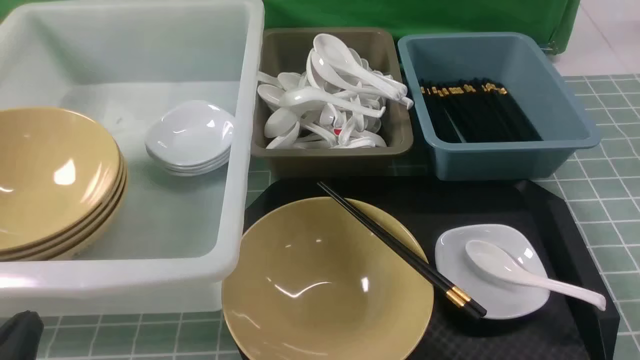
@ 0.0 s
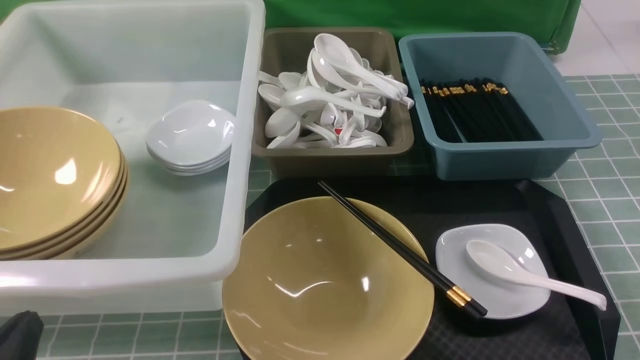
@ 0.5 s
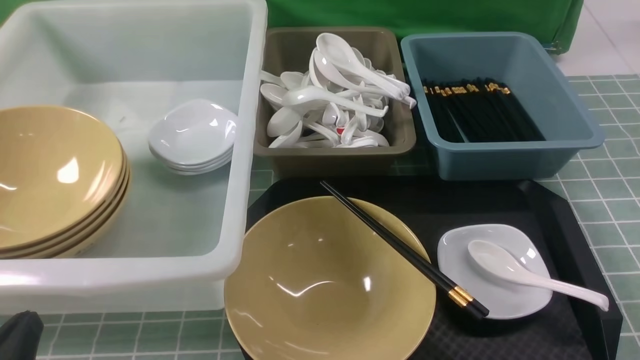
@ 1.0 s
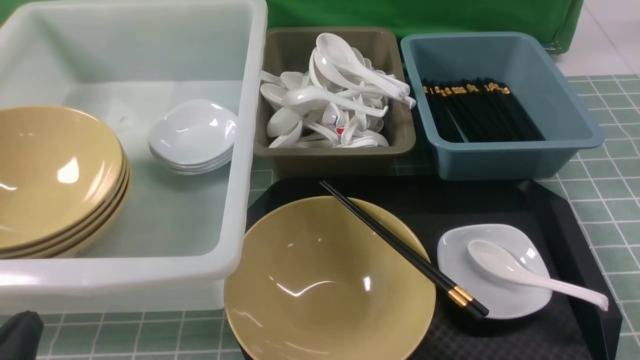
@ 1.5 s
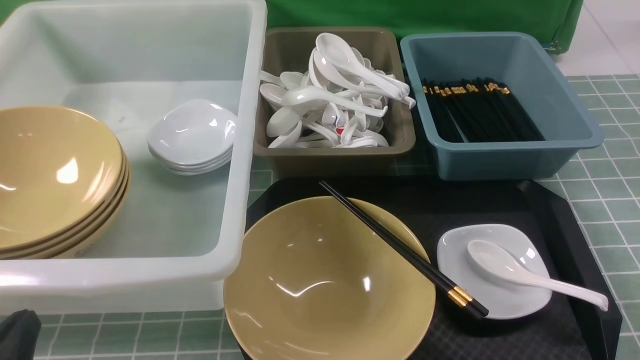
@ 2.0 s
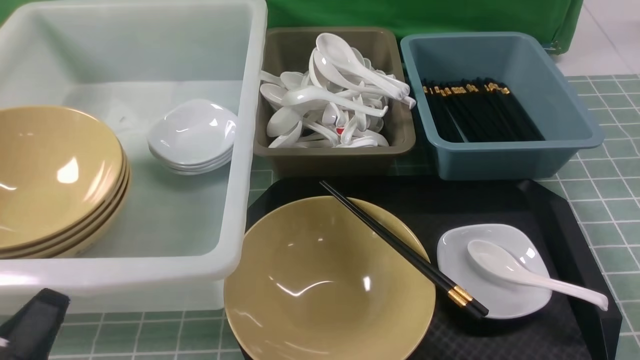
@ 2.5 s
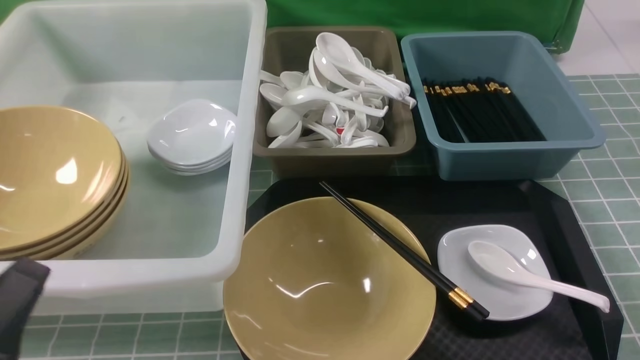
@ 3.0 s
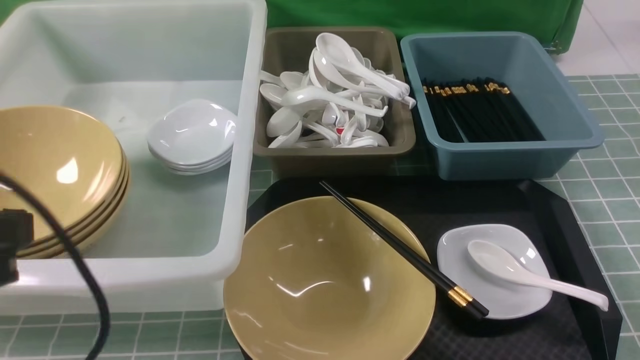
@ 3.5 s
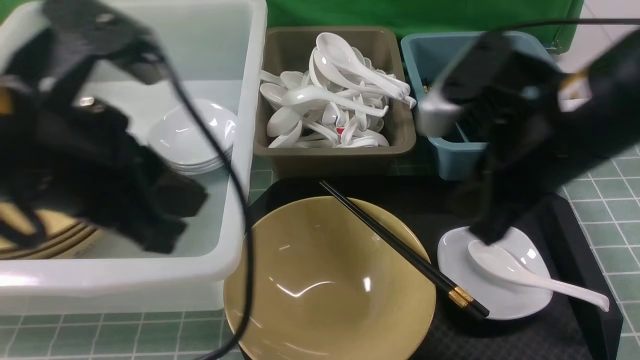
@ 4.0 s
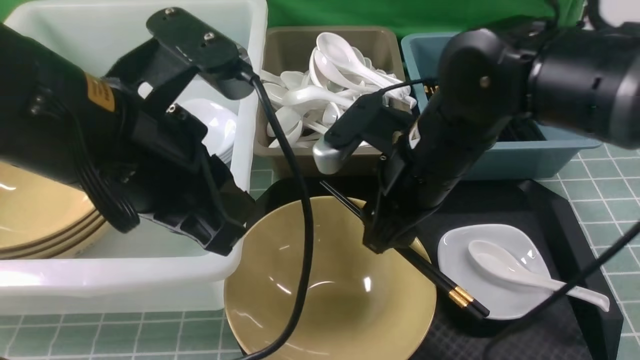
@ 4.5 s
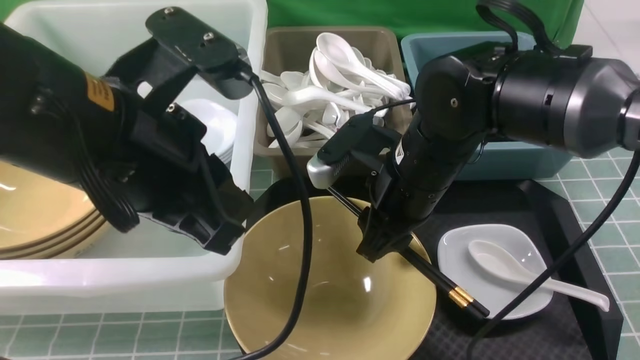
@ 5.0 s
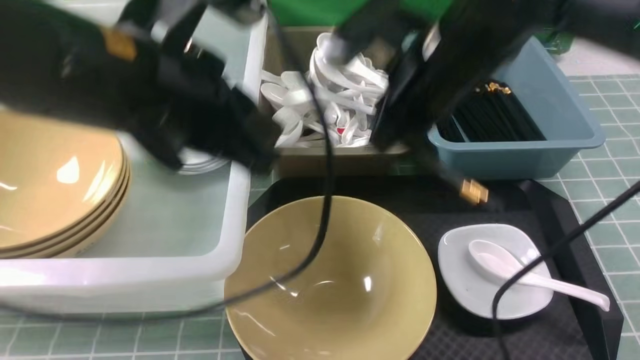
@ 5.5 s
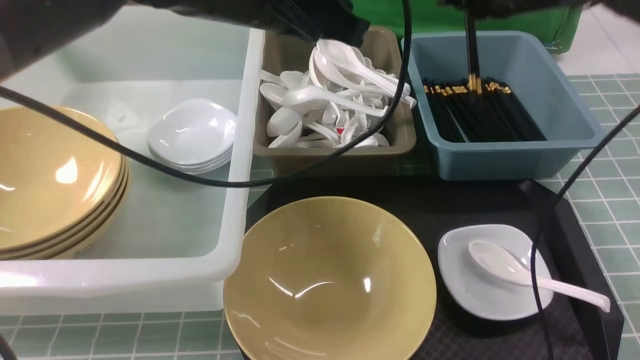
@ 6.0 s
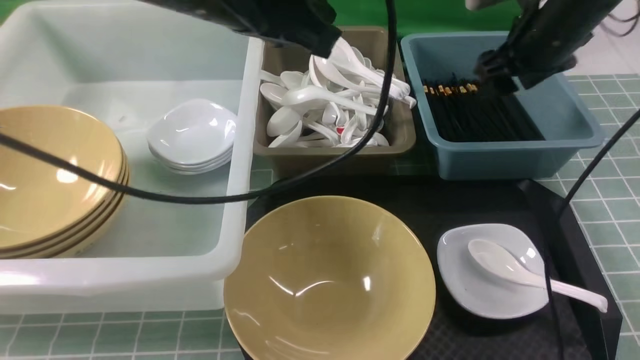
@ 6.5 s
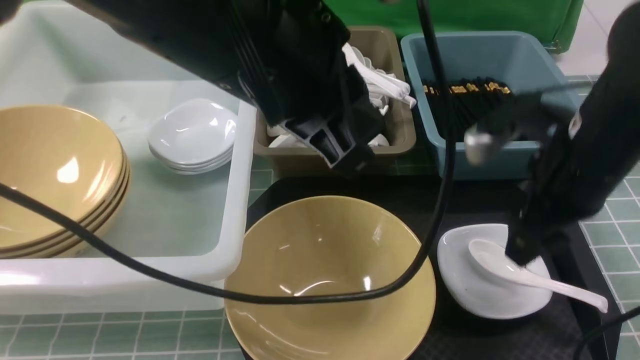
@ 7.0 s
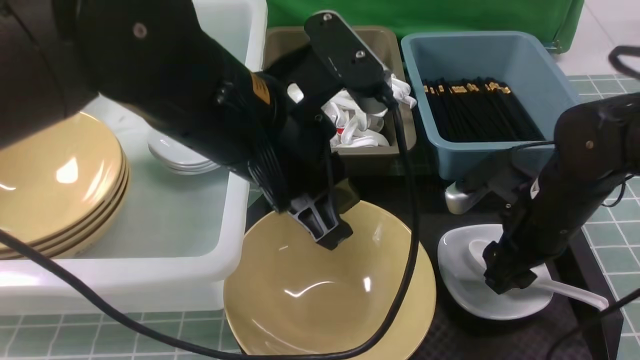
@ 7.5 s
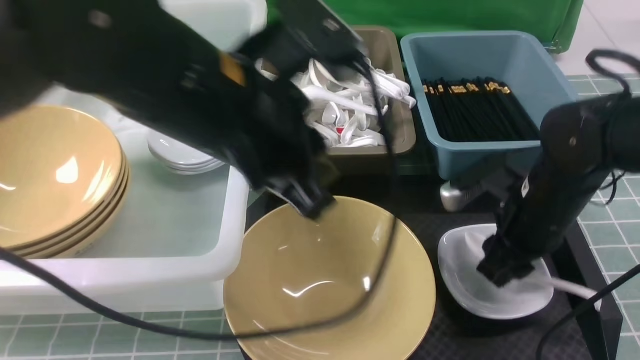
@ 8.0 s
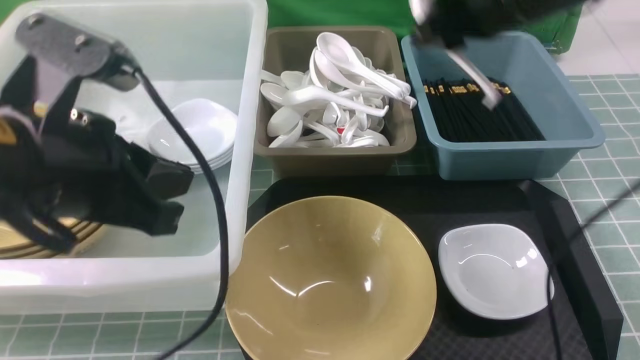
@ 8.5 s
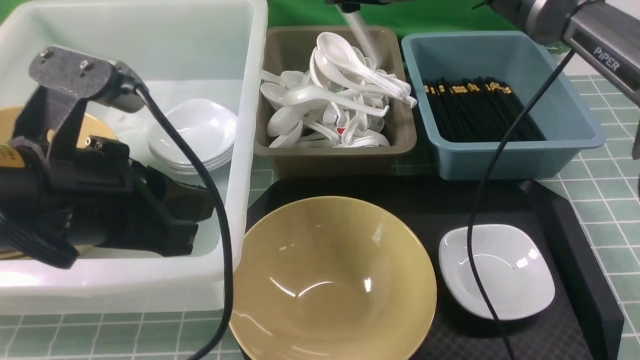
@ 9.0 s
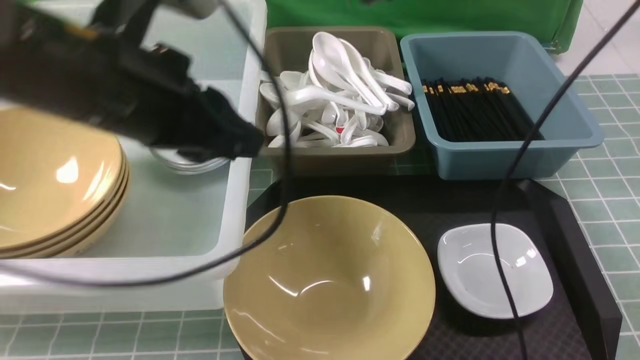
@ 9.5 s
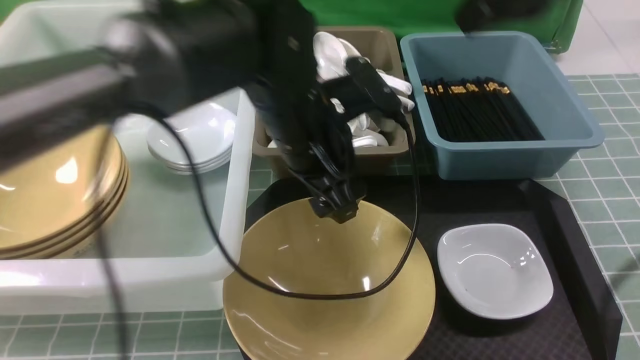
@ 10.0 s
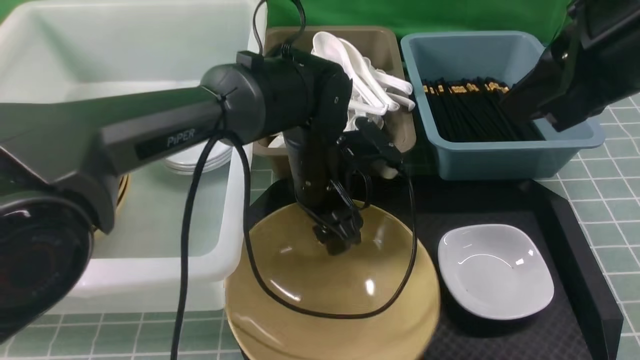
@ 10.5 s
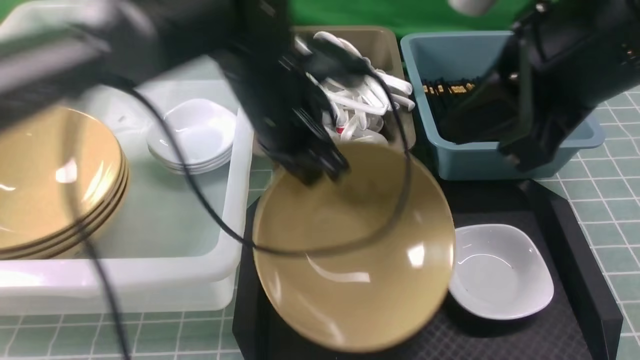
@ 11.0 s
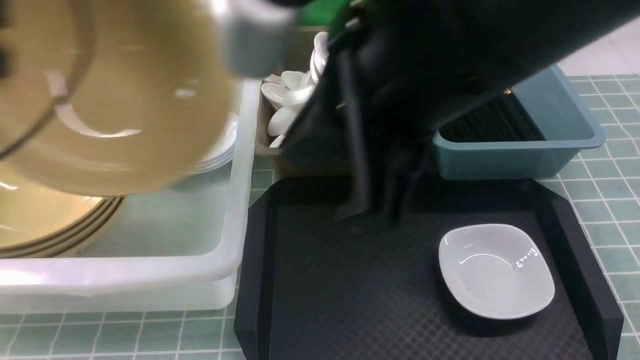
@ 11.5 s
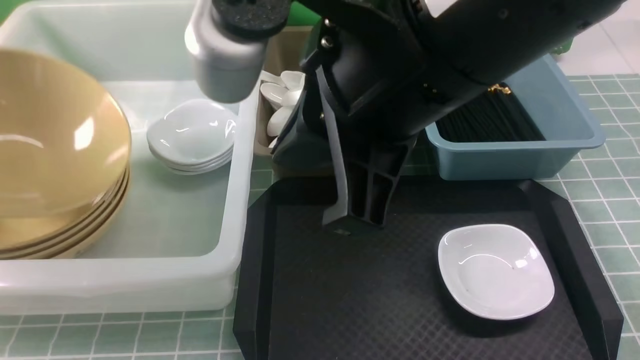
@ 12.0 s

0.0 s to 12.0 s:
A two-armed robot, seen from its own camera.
Task of the whole recording: on blue table put chopsticks spoon bowls plates into blue grey white boxes.
Step, 0.0 to 5.0 s: use the right arm to grab the chopsticks.
Step, 5.5 to 6.5 s: use the right arm to put the chopsticks into the small storage box on the right.
Step, 7.0 to 8.0 s: use the right arm to grab the soup spoon in the middle.
Step, 8.5 to 9.0 s: use the right arm to put the soup spoon into the small storage box in the middle.
Step, 9.5 to 10.5 s: use the left arm to grab the yellow noodle bowl on the left.
0.0 to 2.0 s: Both grippers stay about where they are.
2.0 to 4.0 s: The right gripper heads forward, to the left and upward, covering roughly 30 cm; the left gripper is displaced upward, forward and to the right by some 25 cm.
4.0 to 6.0 s: The left gripper travels forward and to the right by about 15 cm. Meanwhile the right gripper shifts roughly 20 cm forward, and opens, then closes again.
6.0 to 8.0 s: The left gripper moves backward, approximately 10 cm; the right gripper moves backward and downward, about 20 cm, and opens, then closes once more.
8.0 to 10.0 s: The left gripper heads forward, downward and to the right, covering some 15 cm, and opens its fingers. Meanwhile the right gripper travels upward by some 25 cm, and closes its fingers.
10.0 to 12.0 s: The left gripper moves to the left, about 40 cm, and closes its fingers; the right gripper travels to the left and backward by roughly 15 cm.

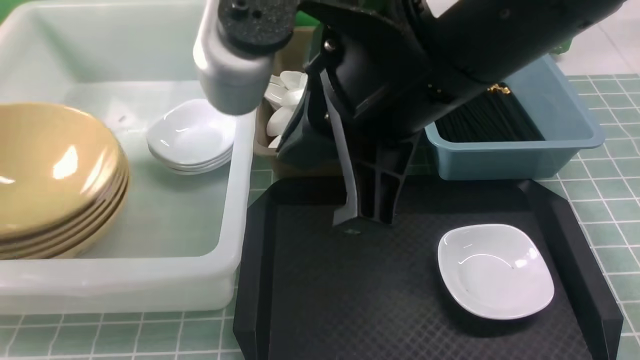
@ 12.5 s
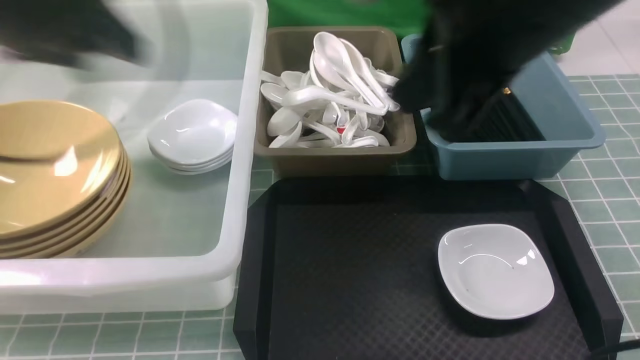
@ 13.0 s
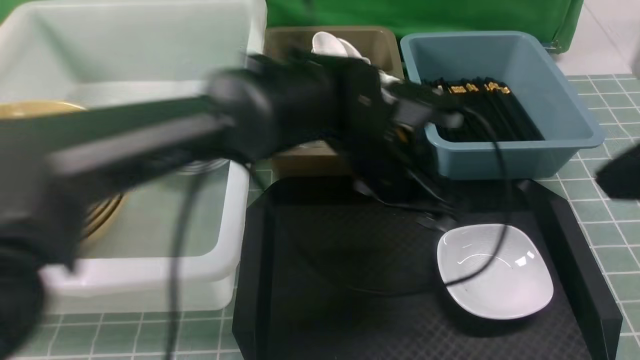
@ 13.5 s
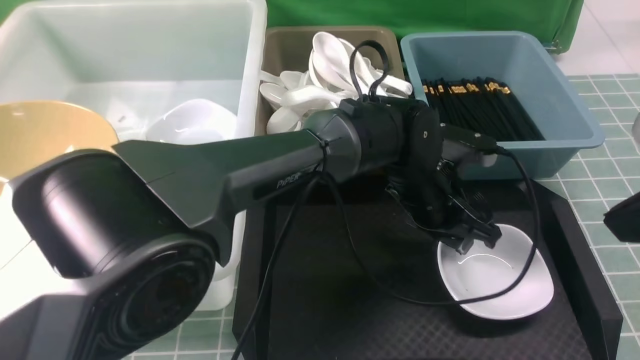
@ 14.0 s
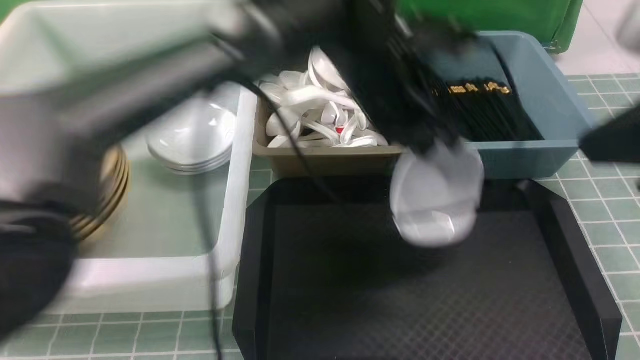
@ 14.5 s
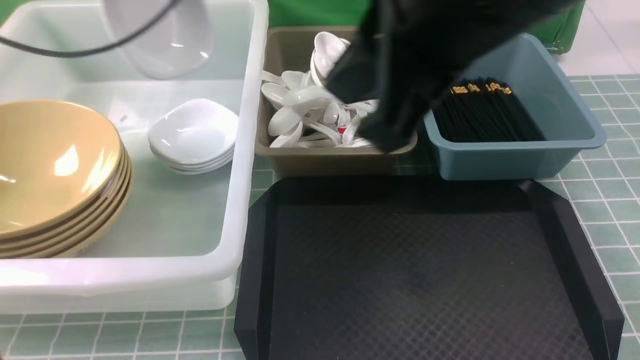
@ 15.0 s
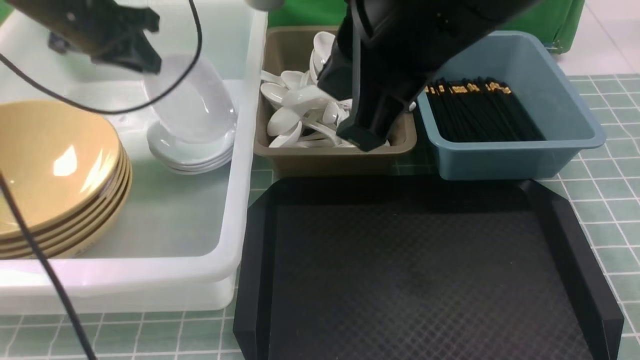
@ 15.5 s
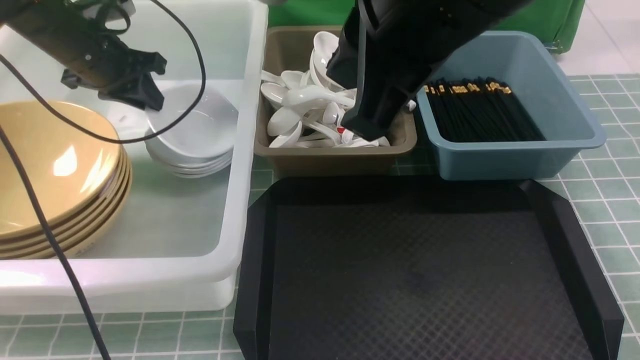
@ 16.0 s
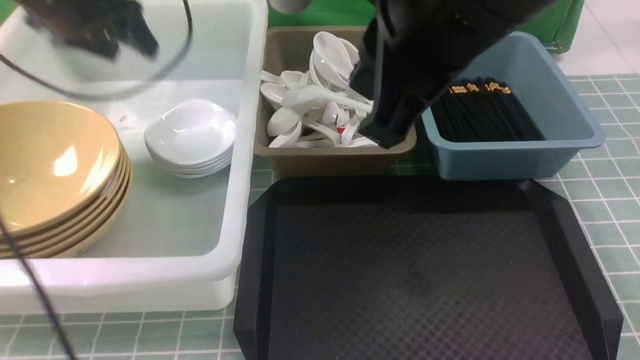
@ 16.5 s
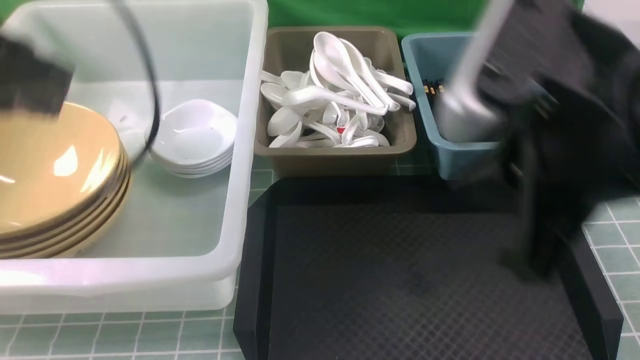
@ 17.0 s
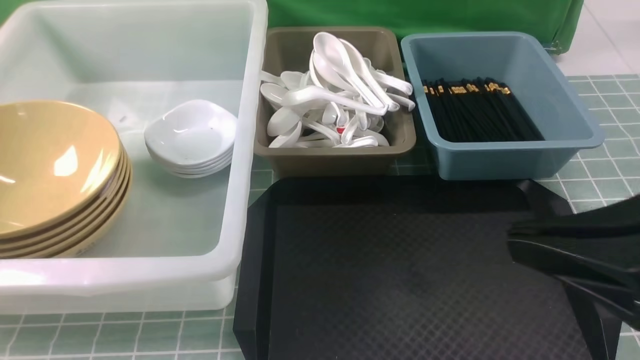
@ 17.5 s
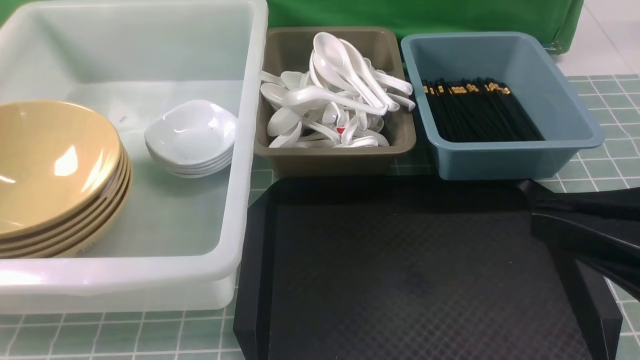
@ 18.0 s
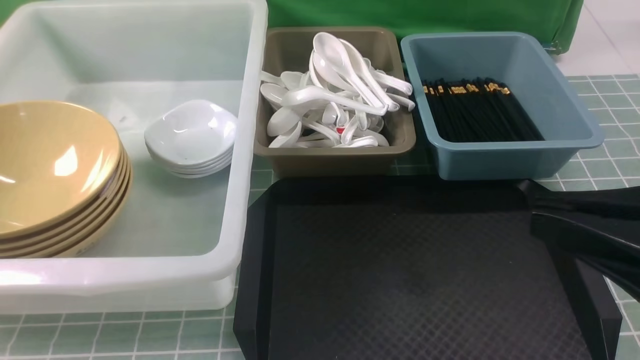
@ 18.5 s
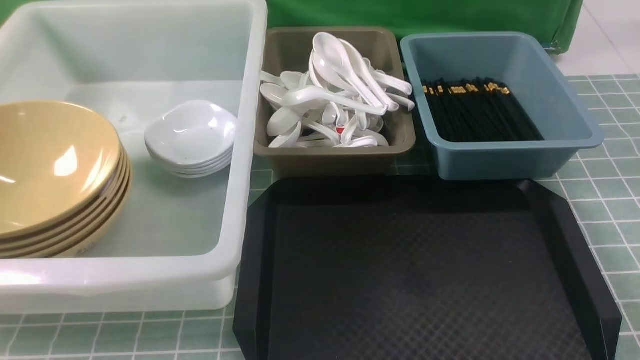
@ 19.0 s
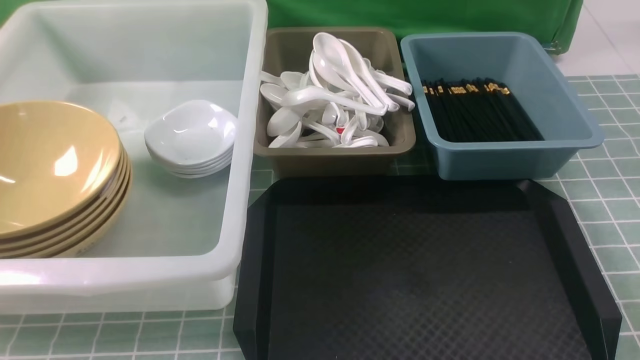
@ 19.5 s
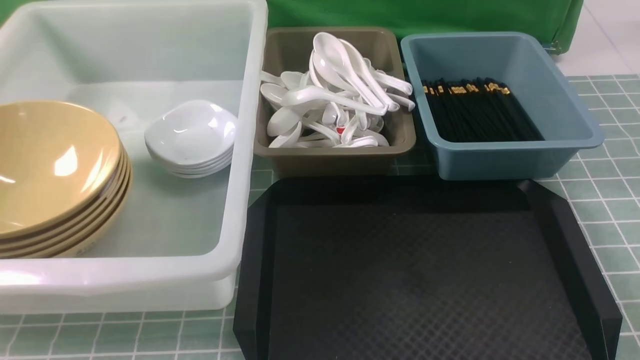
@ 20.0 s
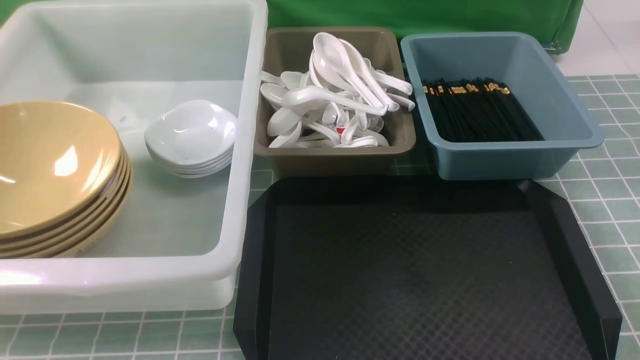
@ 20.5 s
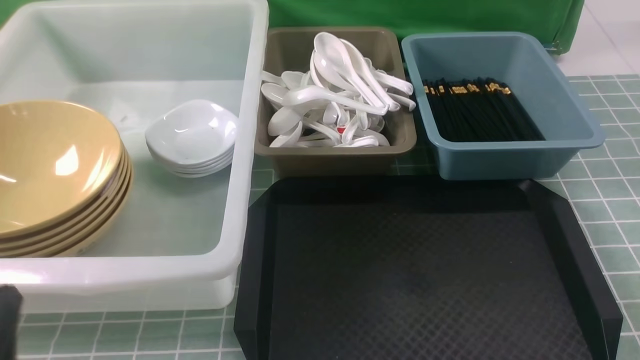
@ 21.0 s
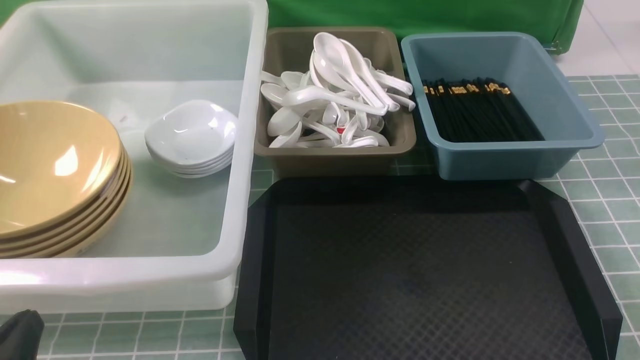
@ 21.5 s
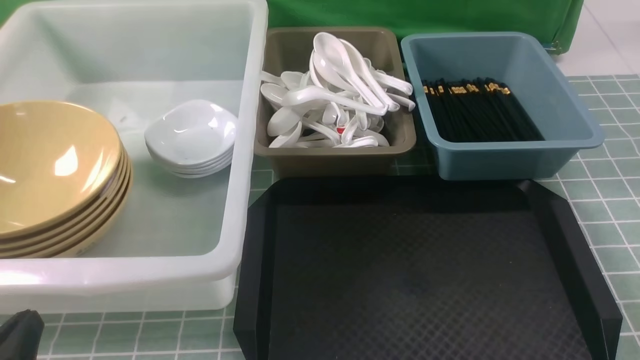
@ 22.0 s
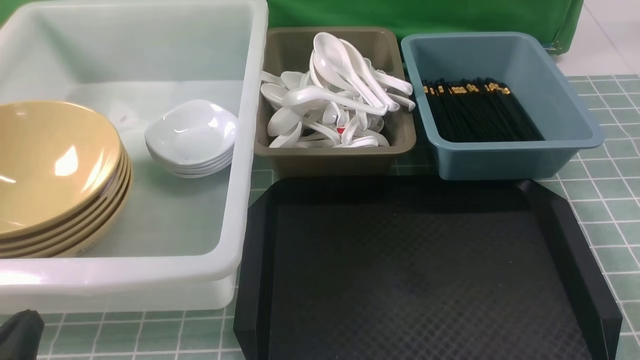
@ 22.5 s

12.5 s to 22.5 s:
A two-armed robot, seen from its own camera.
Task of the whole recording: on blue table put chopsticks spoon bowls plates into blue grey white boxes.
Step, 12.5 to 14.0 s: use the left arm to grab the plate.
Step, 14.5 to 16.5 s: use the left arm to put the plate into the large storage box on the left.
12.5 to 14.5 s: The right gripper is displaced to the right by roughly 15 cm. Meanwhile the left gripper goes about 40 cm to the right, and closes up.
14.5 to 16.5 s: The left gripper travels to the left by approximately 30 cm, and opens. Meanwhile the right gripper shifts about 10 cm to the left.
16.5 to 18.5 s: The left gripper heads backward, covering roughly 40 cm, and closes its fingers; the right gripper is displaced to the right, backward and downward by some 20 cm.
18.5 to 20.5 s: The right gripper goes some 20 cm downward and to the right.
20.5 to 22.5 s: The left gripper shifts roughly 10 cm downward.
